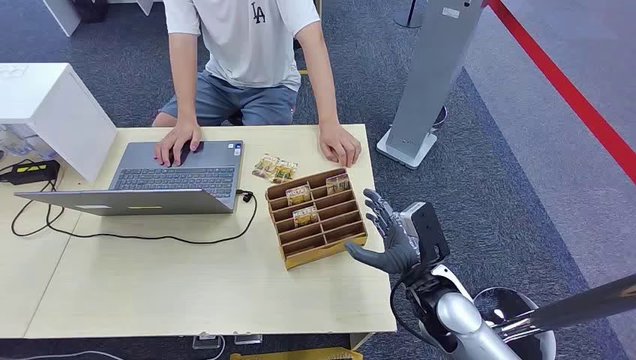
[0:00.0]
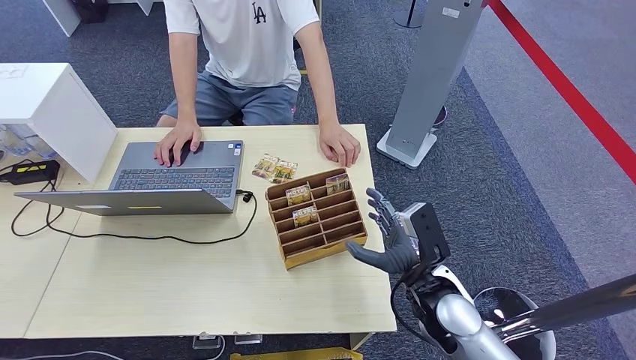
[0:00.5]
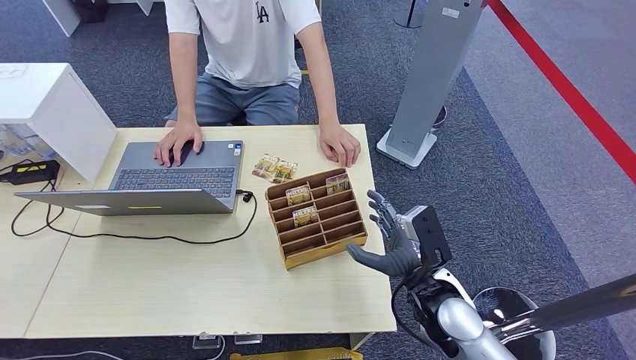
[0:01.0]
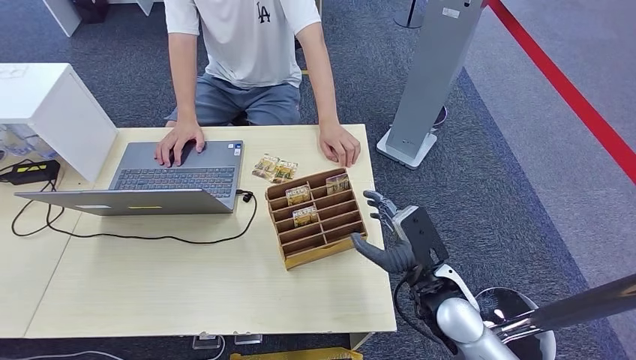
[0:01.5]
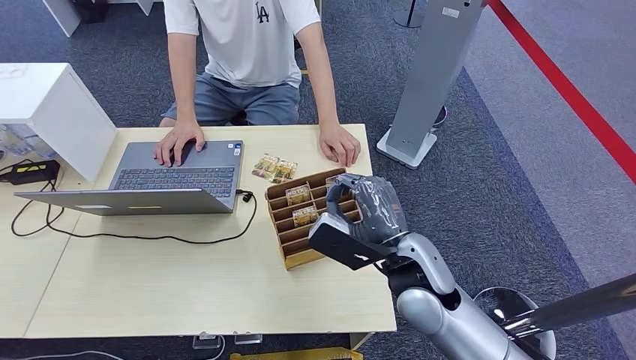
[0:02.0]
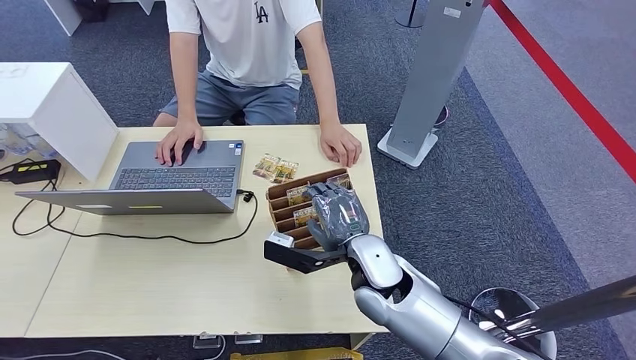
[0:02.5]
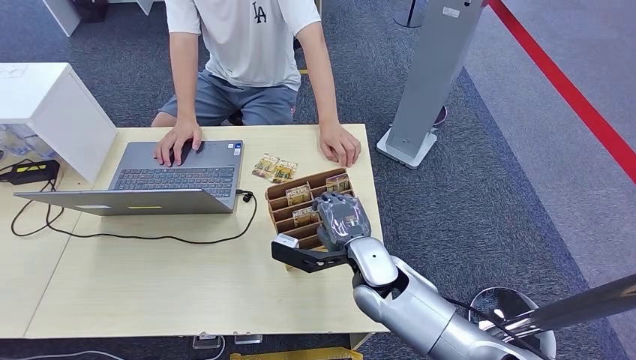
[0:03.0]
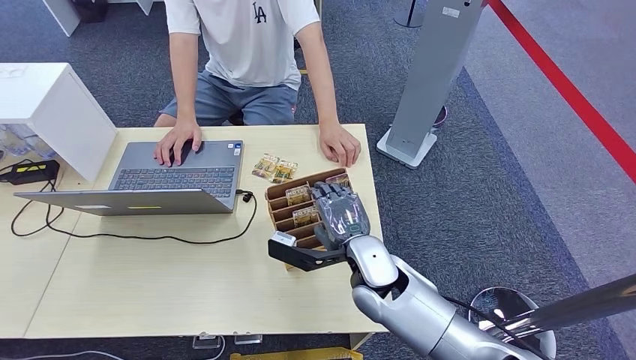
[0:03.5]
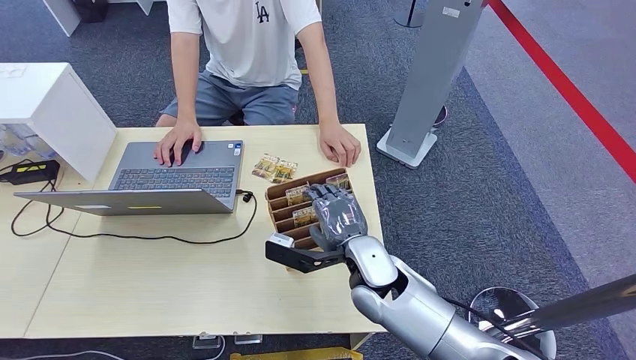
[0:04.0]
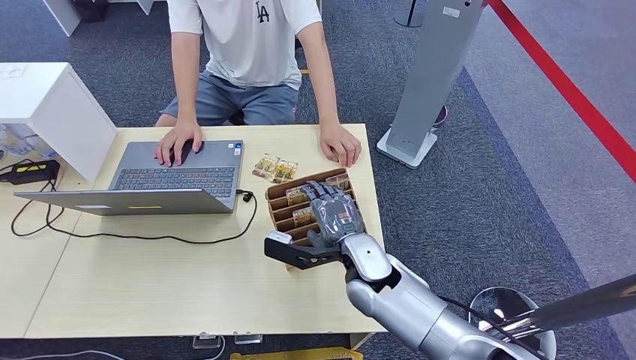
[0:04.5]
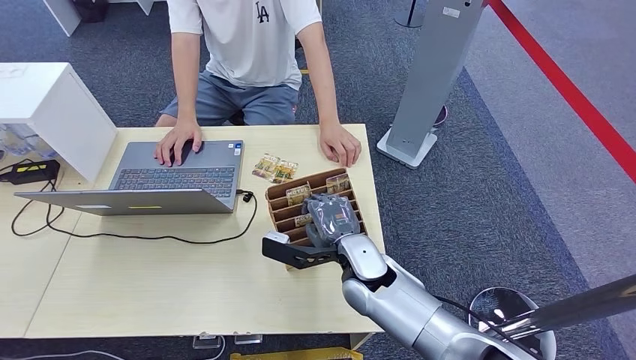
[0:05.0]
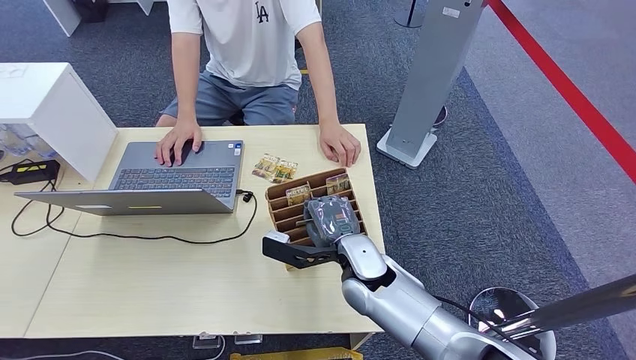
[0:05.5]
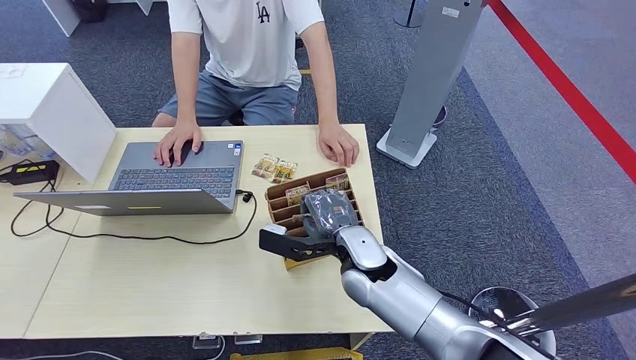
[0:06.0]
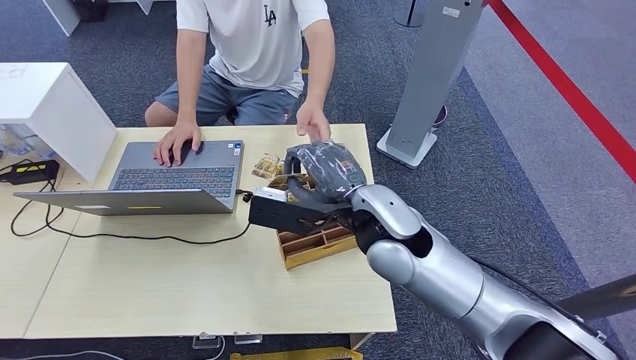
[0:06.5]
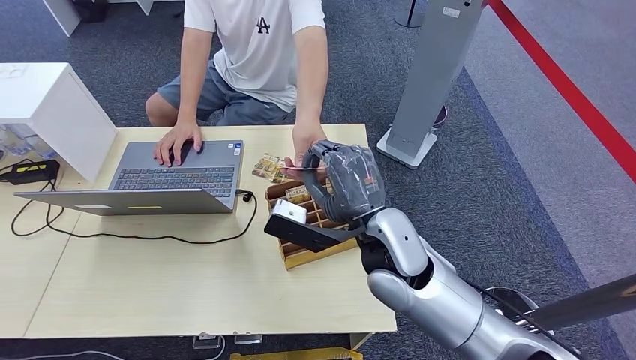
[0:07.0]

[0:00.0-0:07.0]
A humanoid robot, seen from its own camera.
Step, 0:00.0 to 0:06.5: Pick up the room card from the card holder.
0:02.0 to 0:03.5: The right hand moves downward and to the left, approximately 10 cm.
0:03.5 to 0:05.0: The hands stay close to where they were, moving slightly.
0:05.0 to 0:07.0: The right hand goes approximately 10 cm upward.
